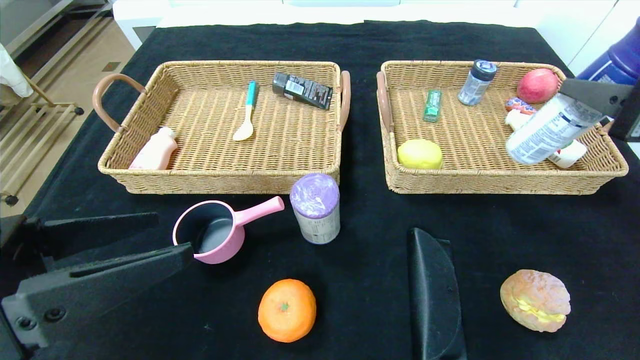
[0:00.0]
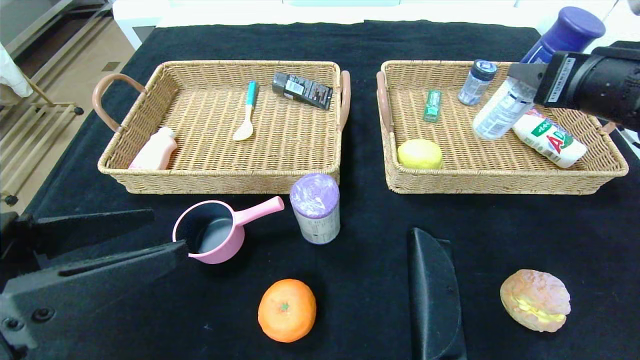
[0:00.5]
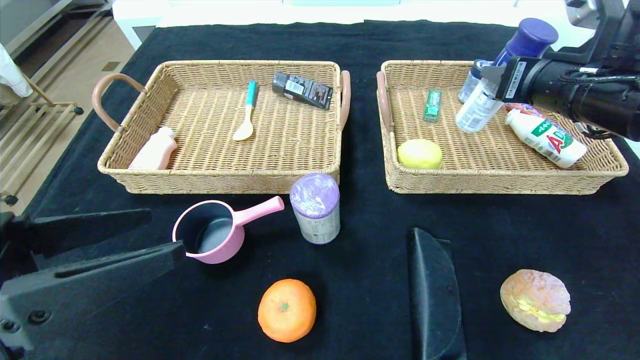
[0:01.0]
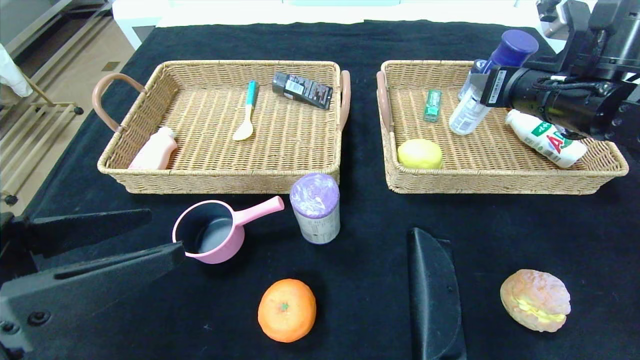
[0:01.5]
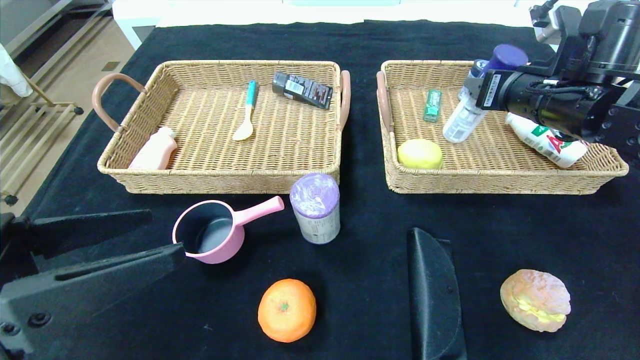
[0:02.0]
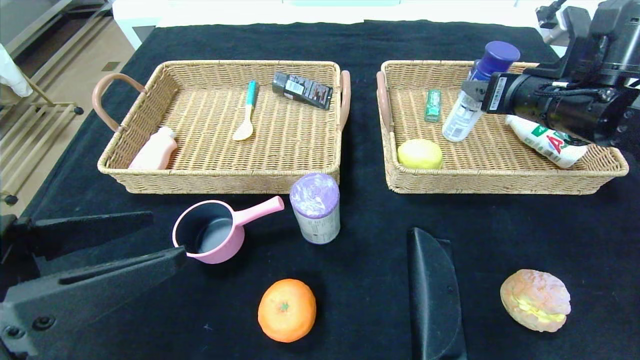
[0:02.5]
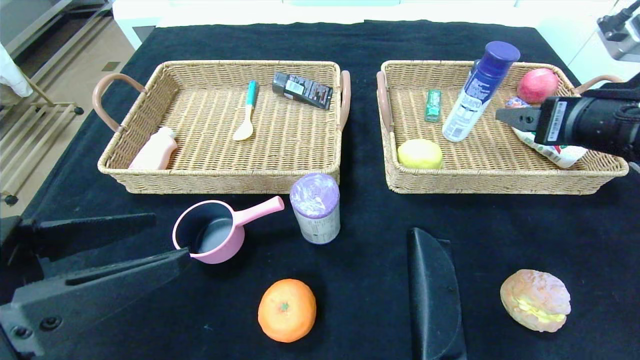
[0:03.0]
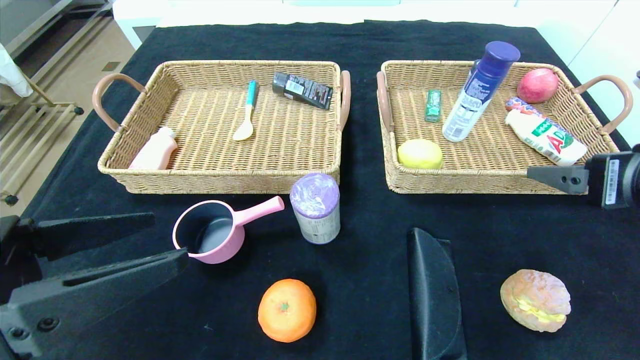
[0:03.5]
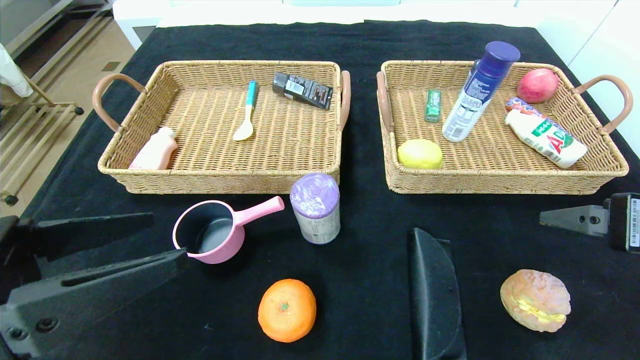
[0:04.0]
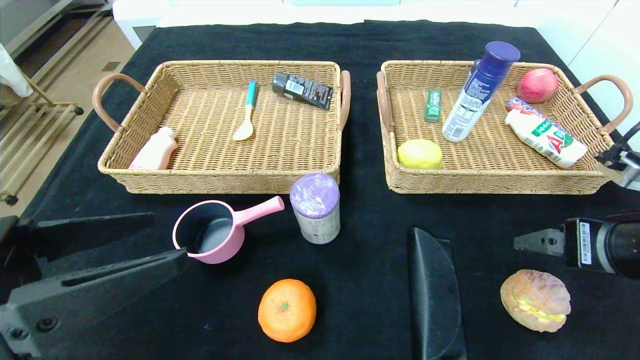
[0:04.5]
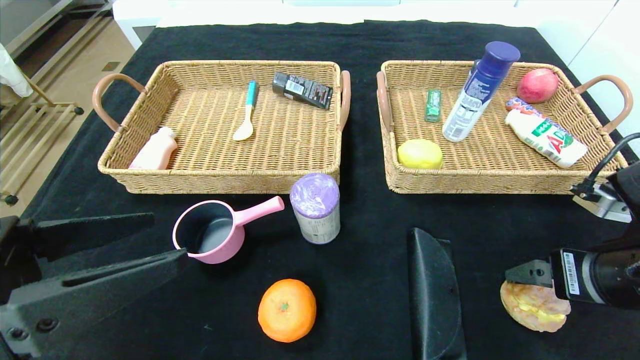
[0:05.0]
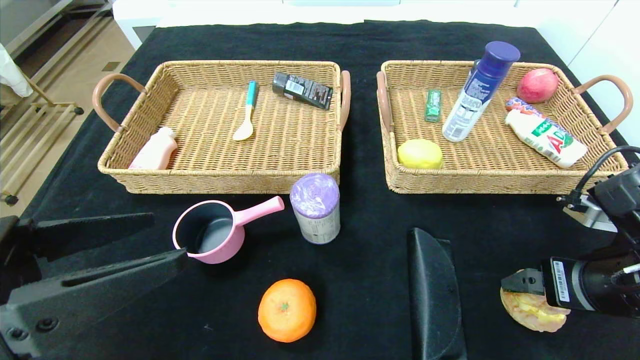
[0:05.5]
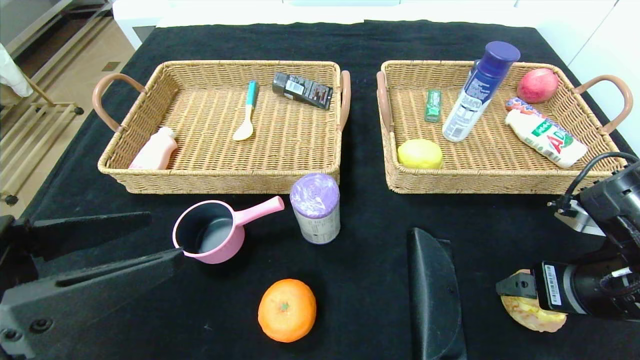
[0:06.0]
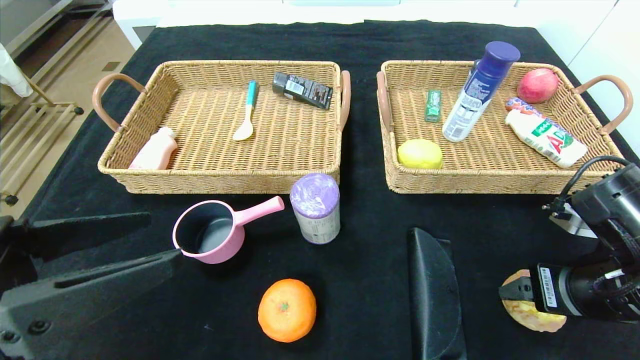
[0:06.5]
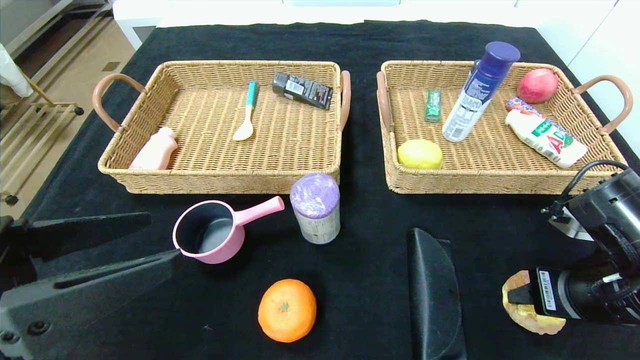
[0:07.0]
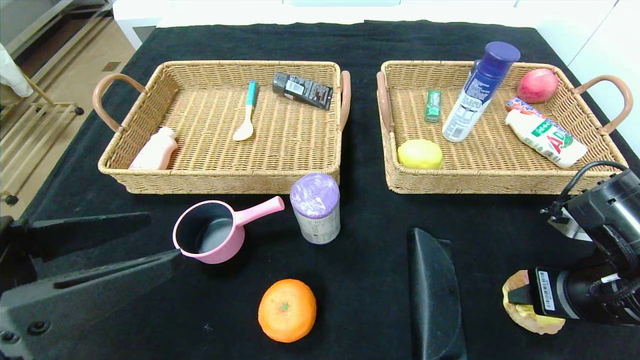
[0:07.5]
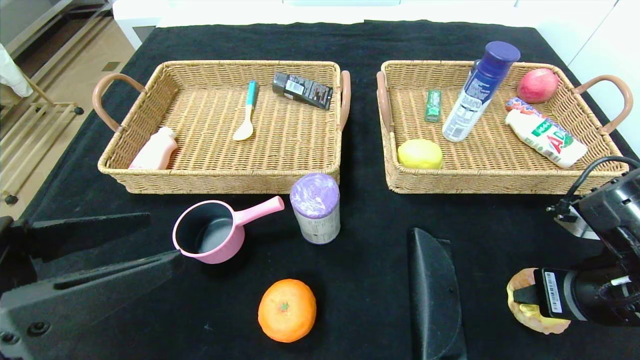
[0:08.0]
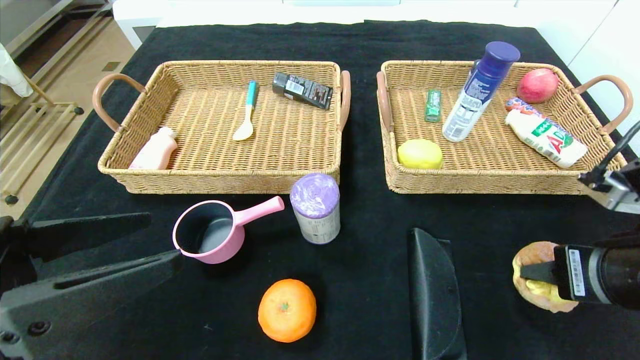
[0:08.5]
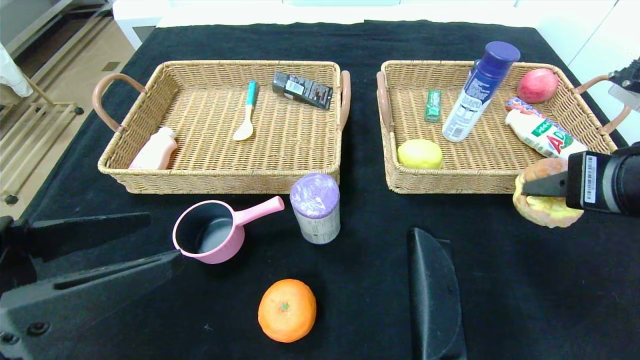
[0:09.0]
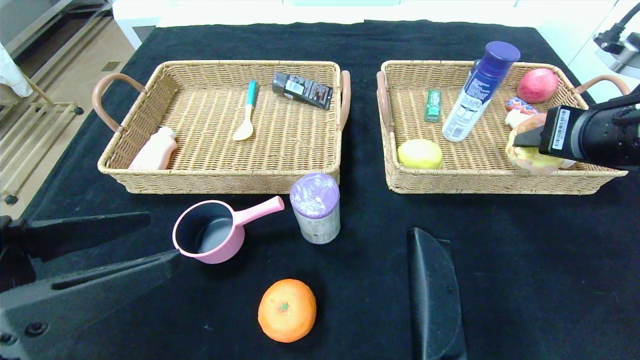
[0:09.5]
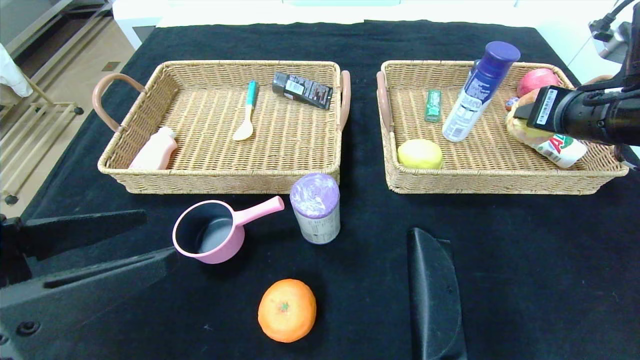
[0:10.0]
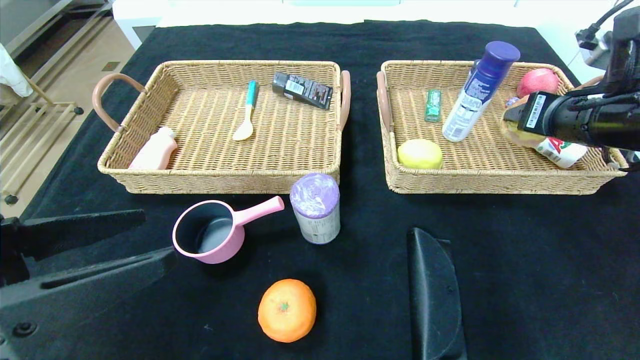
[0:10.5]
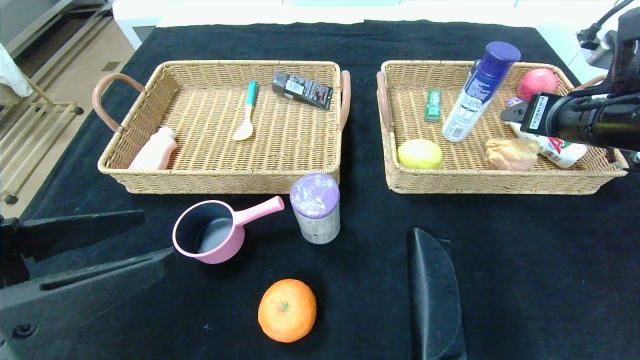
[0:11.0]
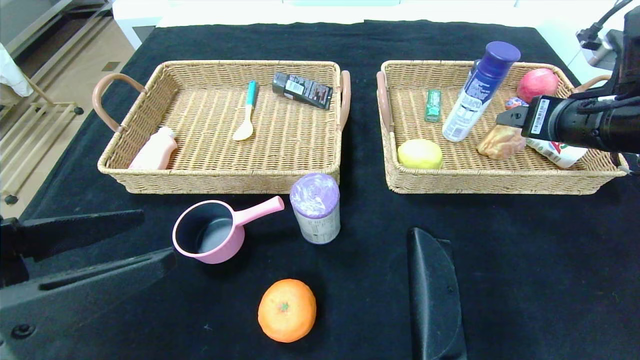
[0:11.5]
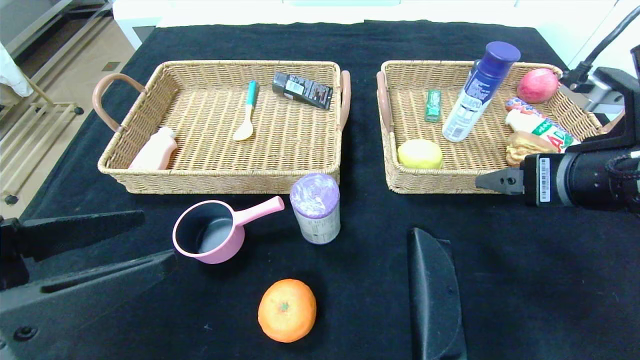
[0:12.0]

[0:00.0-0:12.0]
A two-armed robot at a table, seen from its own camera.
Step, 0:00.0 to 0:03.5: Grasp the yogurt and put it in the right basket.
0:00.0 to 0:02.0: The right gripper heads forward, covering about 15 cm.
0:02.0 to 0:04.0: The right gripper shifts some 20 cm backward, and opens its fingers.
0:04.0 to 0:06.0: The right gripper moves downward, some 5 cm.
0:06.0 to 0:08.0: The right gripper closes up.
0:08.0 to 0:10.0: The right gripper goes approximately 15 cm upward and forward.
0:10.0 to 0:12.0: The right gripper heads backward and to the left, covering about 10 cm, and opens up.

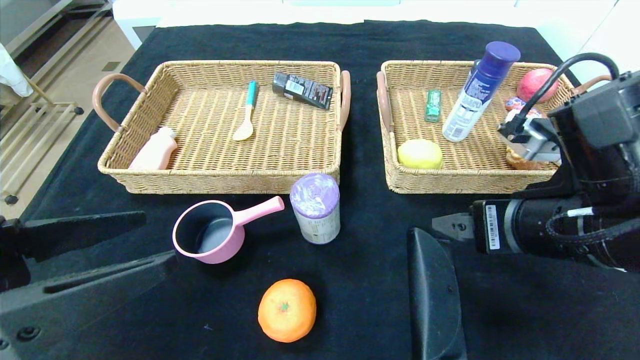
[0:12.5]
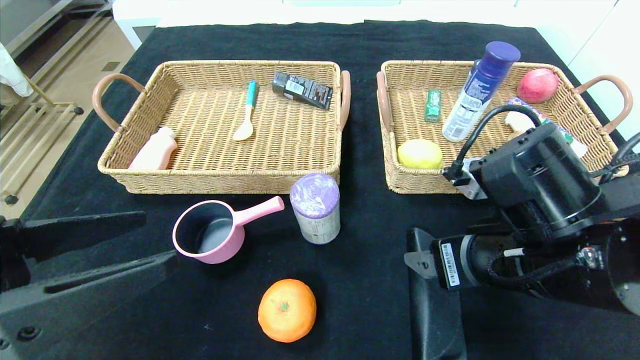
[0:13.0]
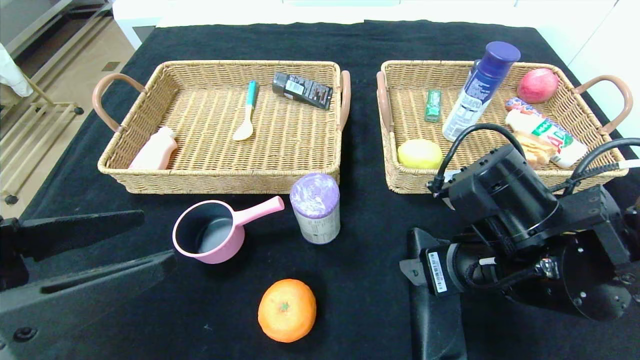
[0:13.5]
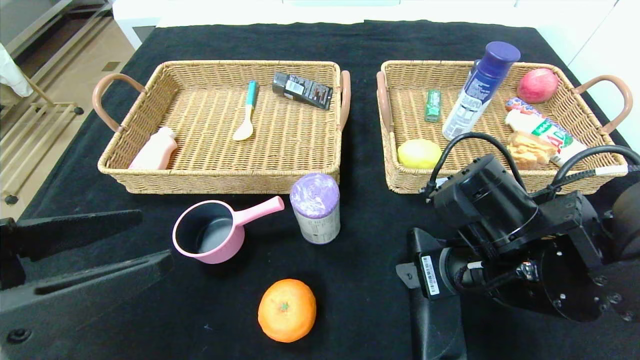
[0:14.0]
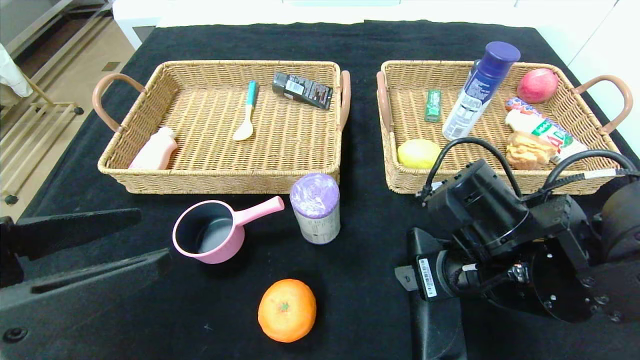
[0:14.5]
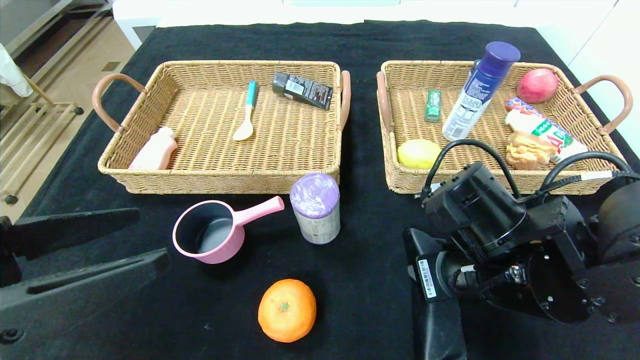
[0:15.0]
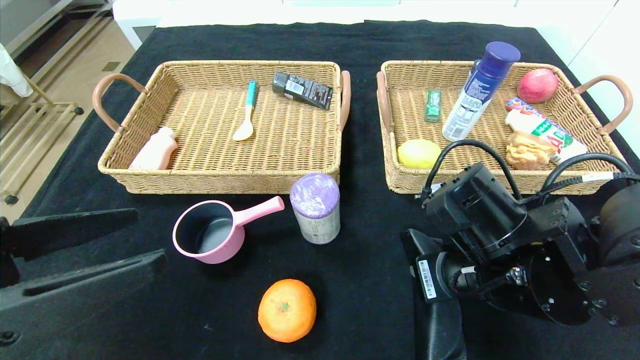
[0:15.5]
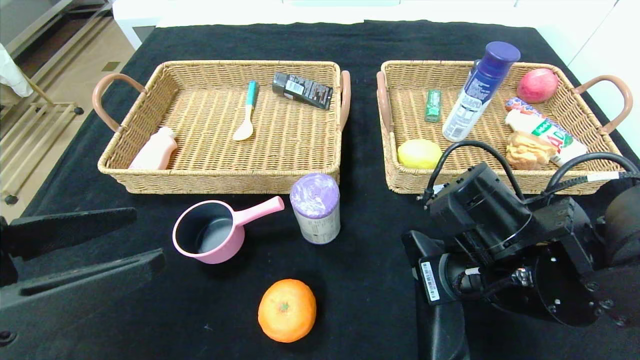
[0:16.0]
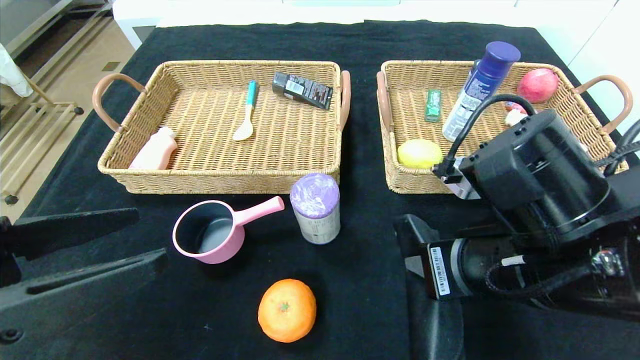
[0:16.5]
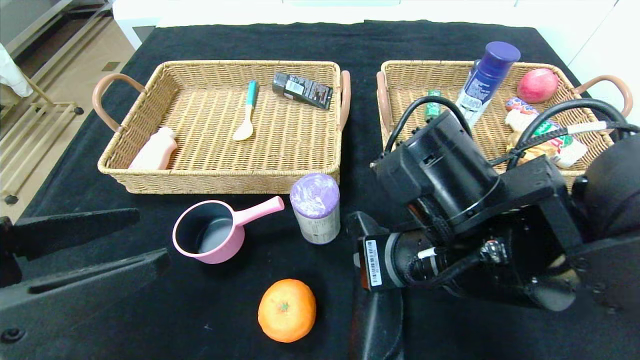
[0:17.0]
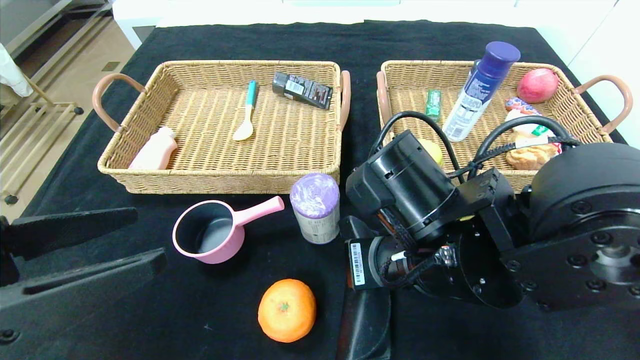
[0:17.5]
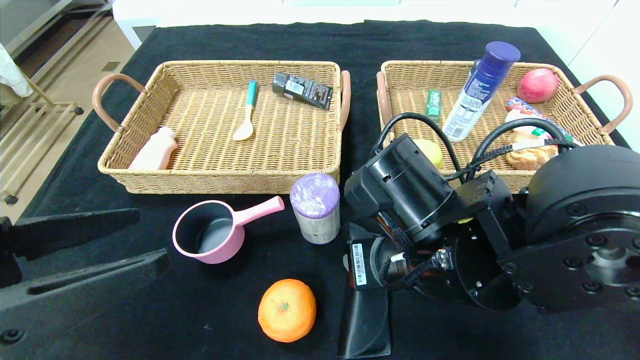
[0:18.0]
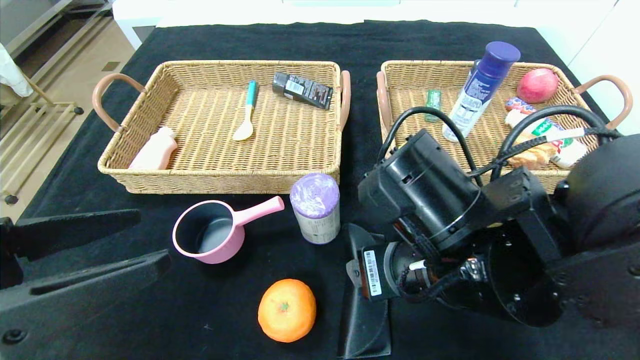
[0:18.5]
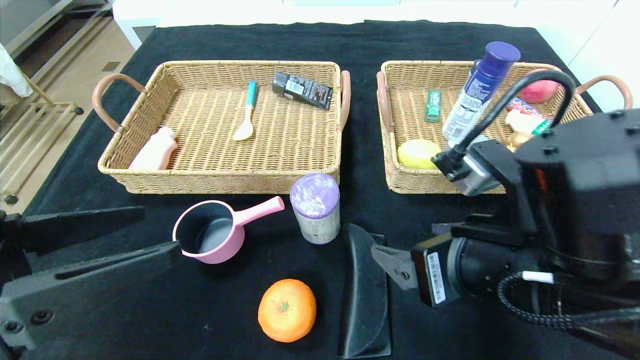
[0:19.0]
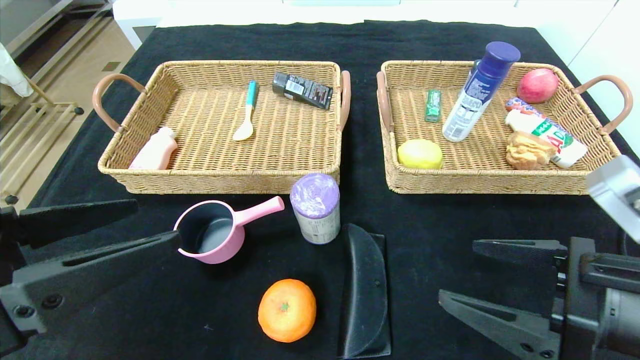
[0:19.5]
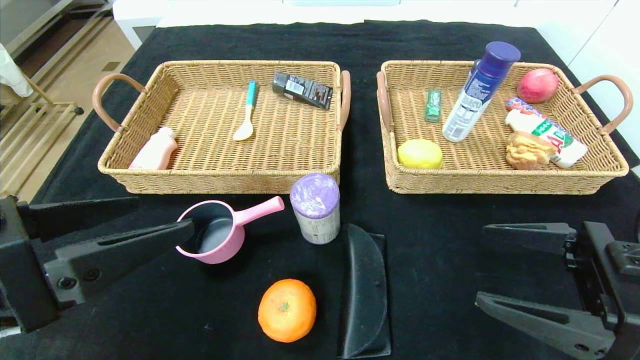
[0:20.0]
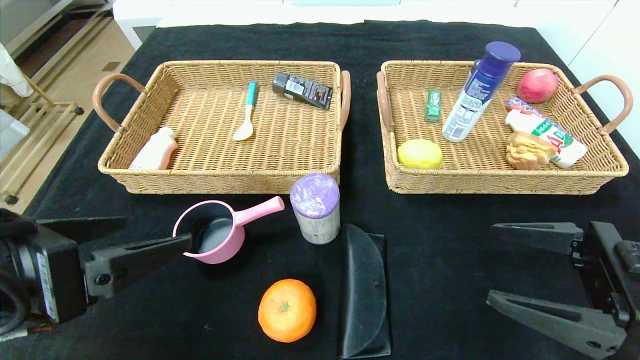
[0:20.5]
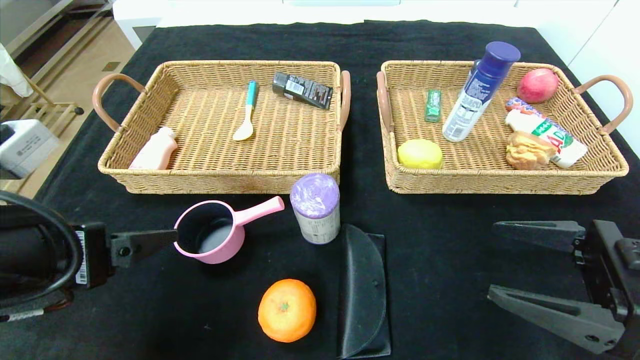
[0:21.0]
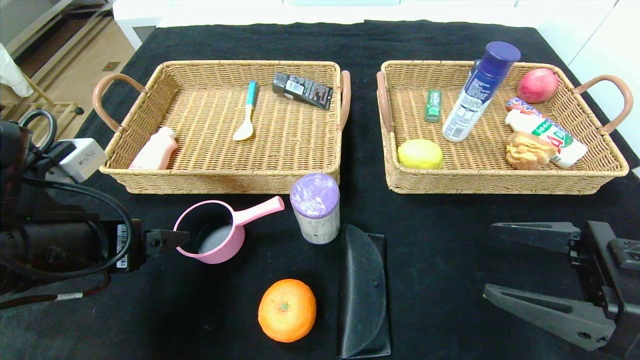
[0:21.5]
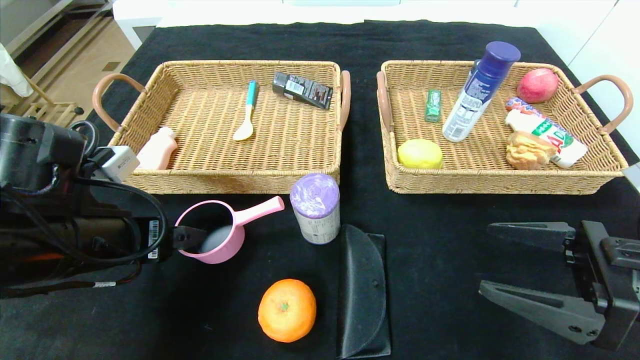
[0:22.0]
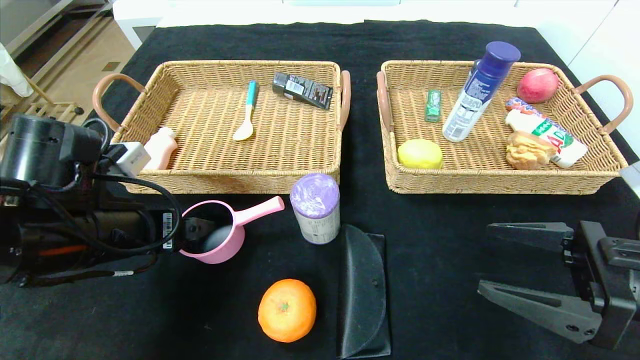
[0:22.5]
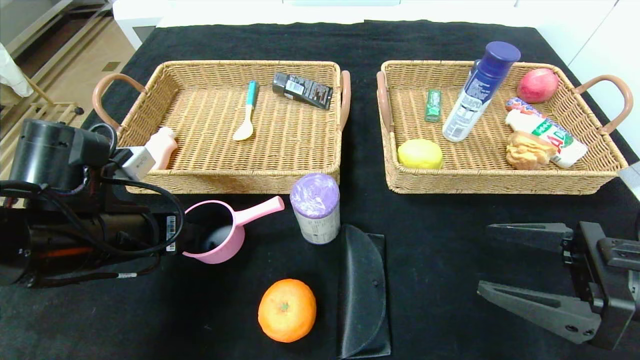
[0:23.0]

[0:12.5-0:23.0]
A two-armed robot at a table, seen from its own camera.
Step, 0:12.5 to 0:19.5: Place the glasses case in the center of the table.
0:12.5 to 0:14.5: The right gripper travels downward by approximately 5 cm.
0:14.5 to 0:16.5: The right gripper changes place by roughly 5 cm, and closes up.
0:16.5 to 0:19.0: The right gripper opens.
0:19.0 to 0:21.0: The right gripper moves to the right, some 15 cm.
0:21.0 to 0:23.0: The left gripper shifts approximately 10 cm forward, and closes up.
